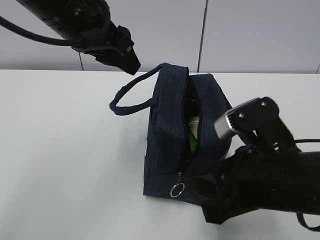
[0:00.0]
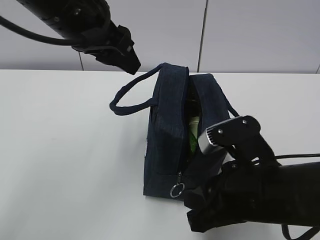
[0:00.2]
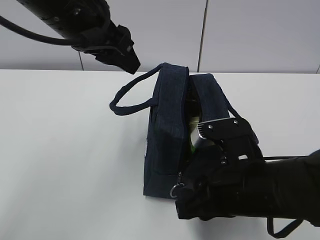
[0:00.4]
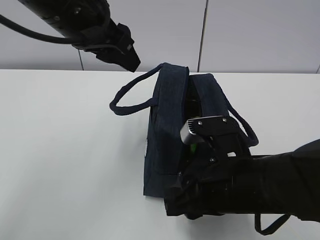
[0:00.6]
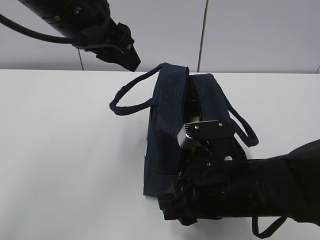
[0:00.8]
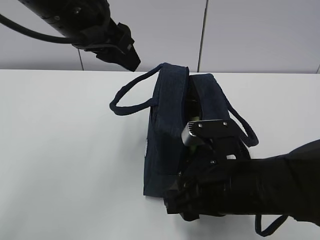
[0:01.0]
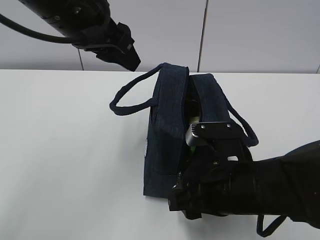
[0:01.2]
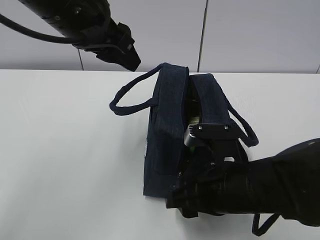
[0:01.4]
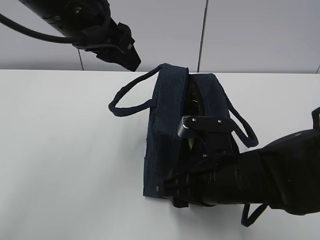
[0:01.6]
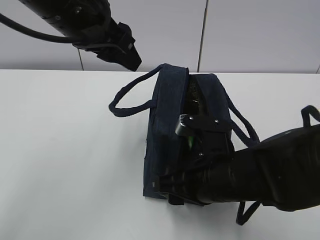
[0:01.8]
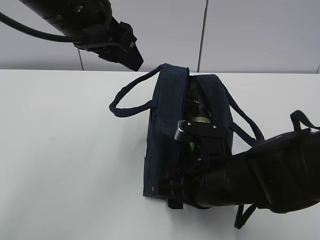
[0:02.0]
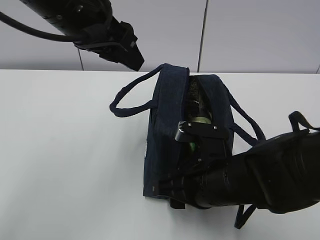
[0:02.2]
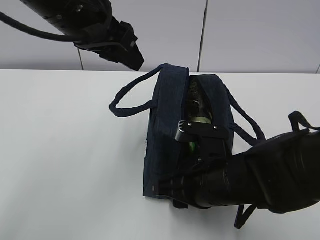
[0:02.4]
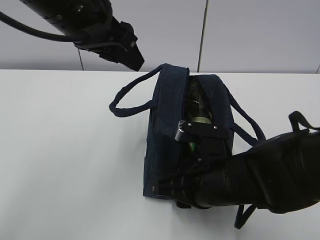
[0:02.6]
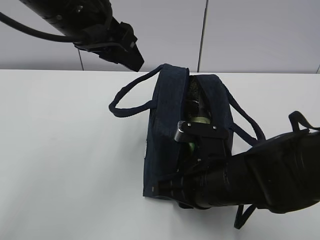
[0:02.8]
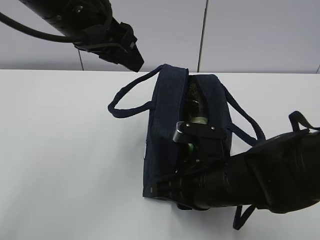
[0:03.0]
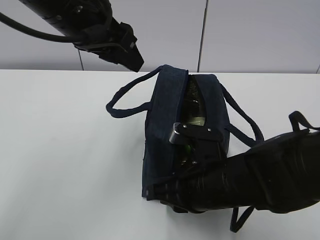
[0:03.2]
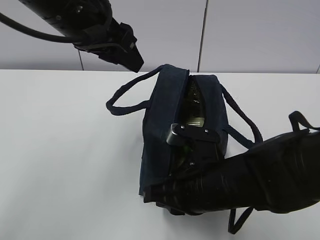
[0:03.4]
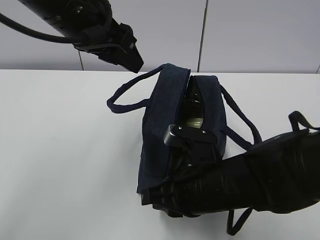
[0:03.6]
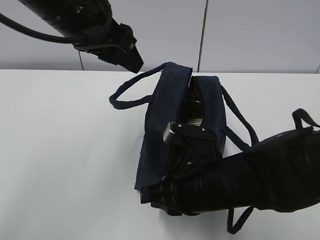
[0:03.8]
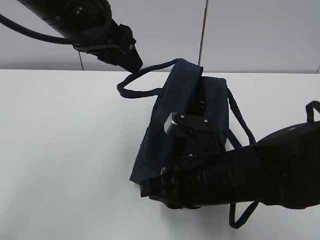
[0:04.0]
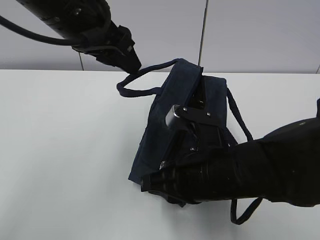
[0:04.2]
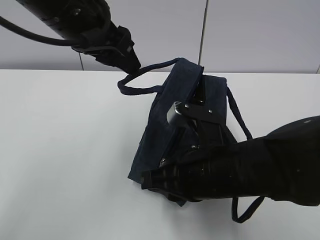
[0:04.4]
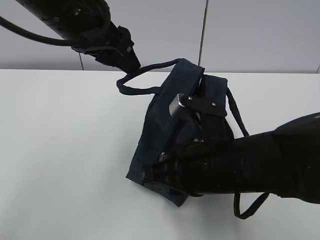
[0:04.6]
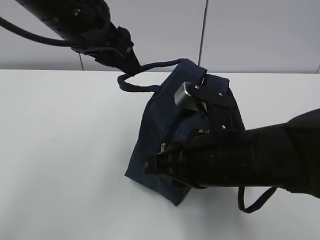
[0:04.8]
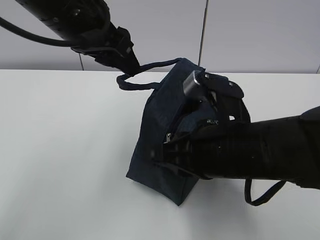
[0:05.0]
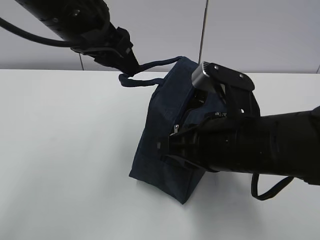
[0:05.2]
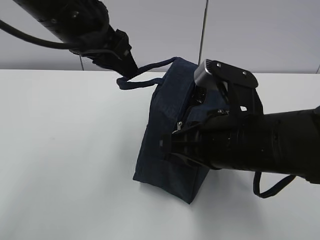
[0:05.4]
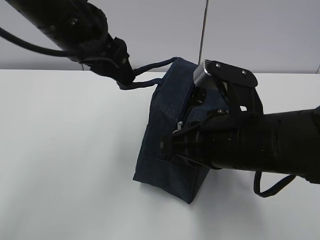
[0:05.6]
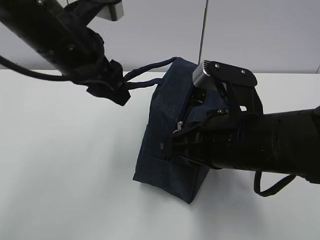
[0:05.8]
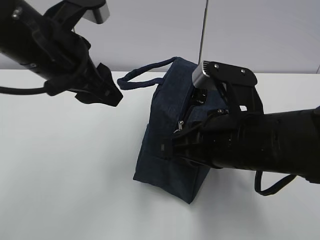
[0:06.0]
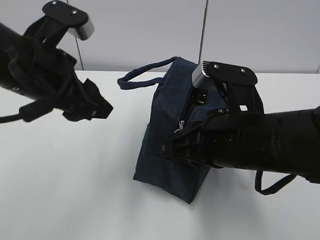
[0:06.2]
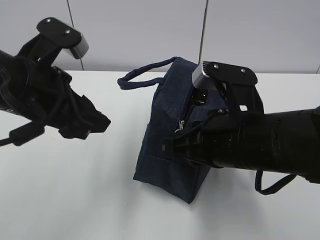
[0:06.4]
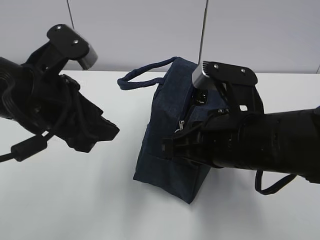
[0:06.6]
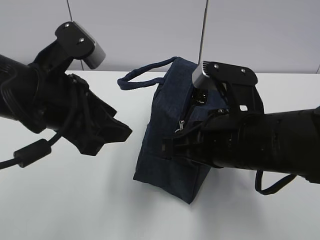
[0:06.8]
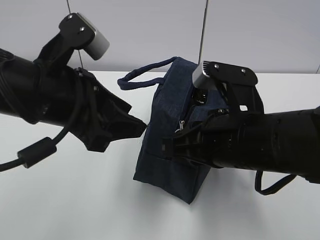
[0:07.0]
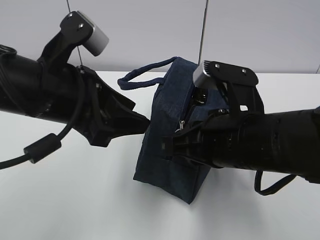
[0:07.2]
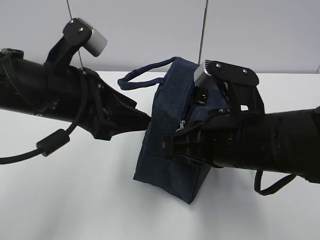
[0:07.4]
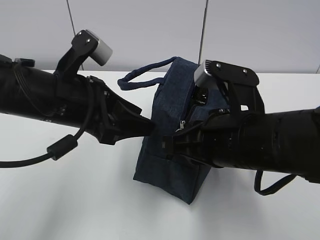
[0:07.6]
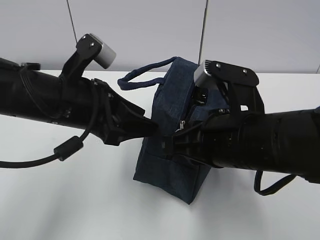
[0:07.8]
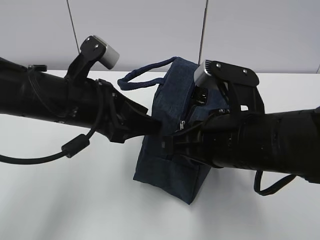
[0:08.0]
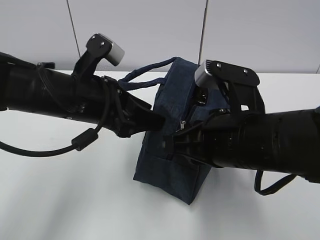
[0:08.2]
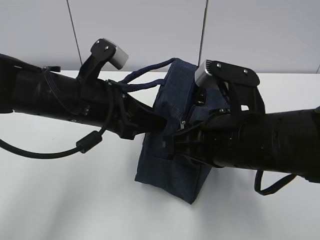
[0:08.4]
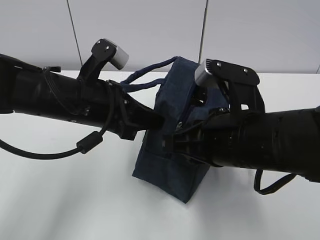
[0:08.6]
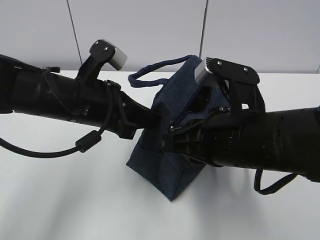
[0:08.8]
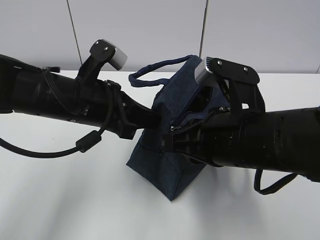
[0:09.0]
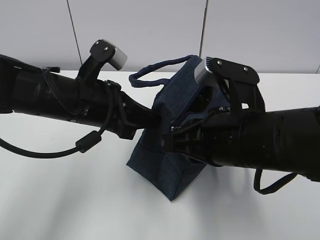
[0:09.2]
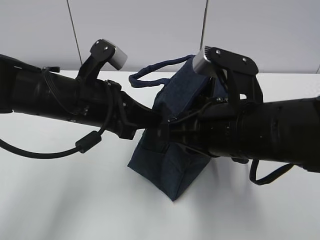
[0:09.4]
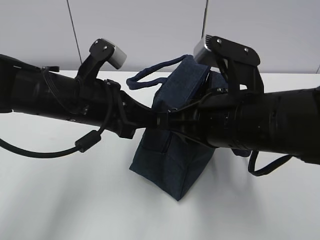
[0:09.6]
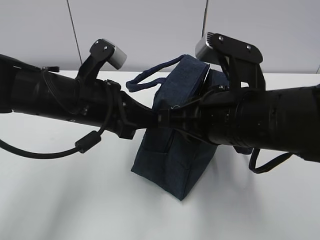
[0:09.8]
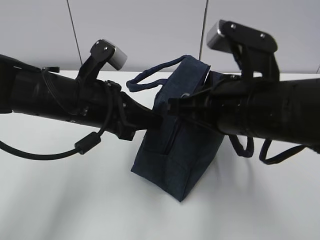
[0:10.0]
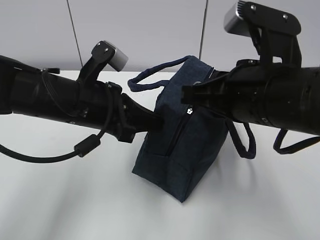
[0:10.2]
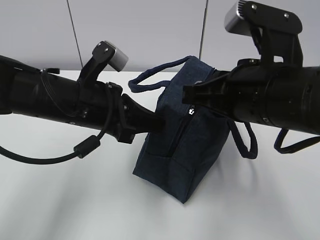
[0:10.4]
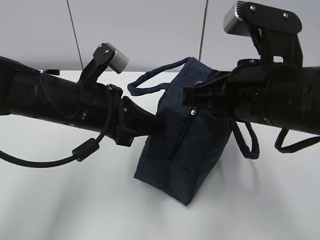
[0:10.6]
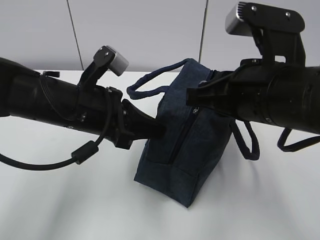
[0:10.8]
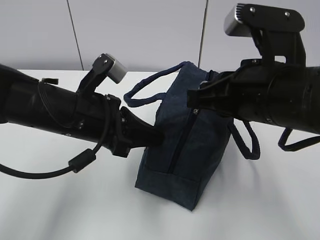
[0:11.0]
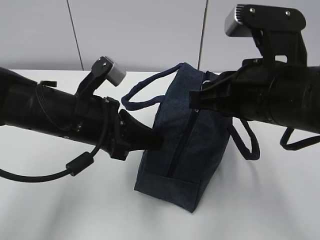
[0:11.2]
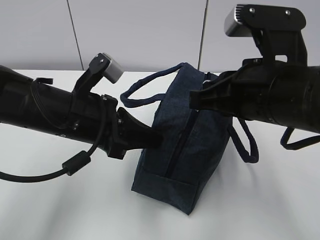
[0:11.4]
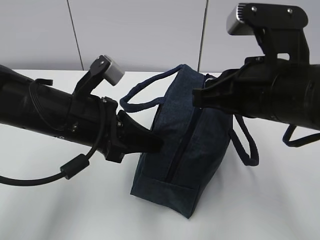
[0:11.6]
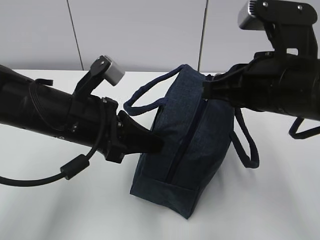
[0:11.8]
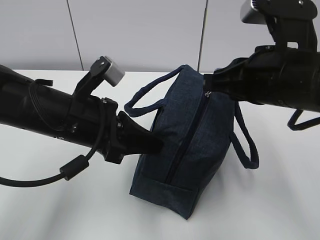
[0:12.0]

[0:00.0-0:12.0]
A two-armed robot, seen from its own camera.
Step, 0:04.0 to 0:09.8: Pull the zipper with your right hand.
Step, 0:10.0 to 0:11.6: Grab the lunch bag with your left hand.
0:00.0 to 0:01.6: The right gripper travels downward by about 5 cm.
0:01.6 to 0:03.0: The right gripper closes up.
0:03.0 to 0:04.4: There are only small adjustments of the grippers.
0:04.4 to 0:06.0: The right gripper shifts by some 5 cm, while the left gripper shifts by about 5 cm.
0:06.0 to 0:07.6: The left gripper heads downward, covering roughly 5 cm.
0:07.6 to 0:09.0: The left gripper closes.
0:09.0 to 0:10.4: The right gripper shifts by about 5 cm.

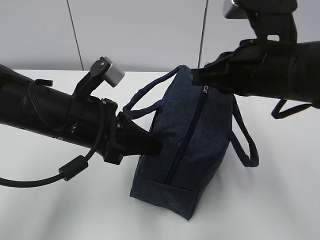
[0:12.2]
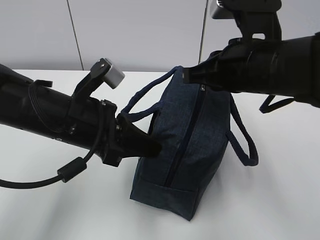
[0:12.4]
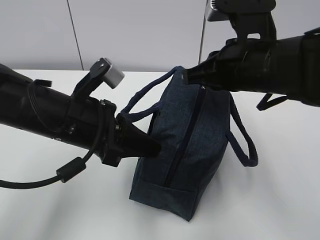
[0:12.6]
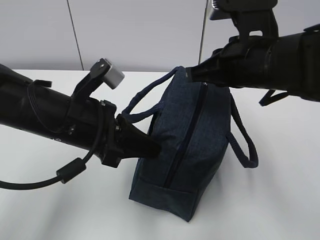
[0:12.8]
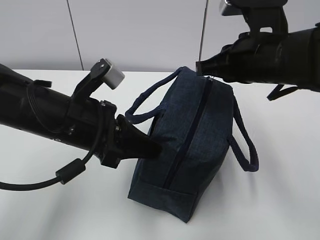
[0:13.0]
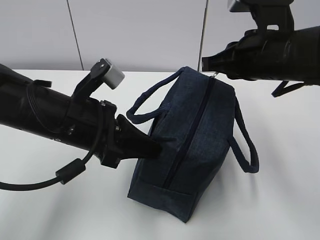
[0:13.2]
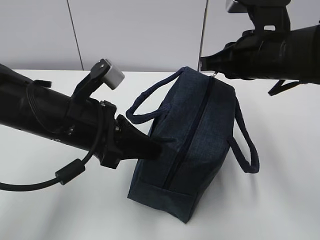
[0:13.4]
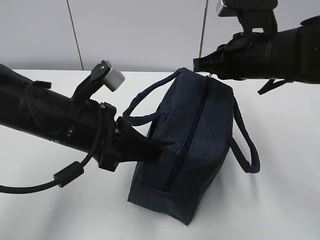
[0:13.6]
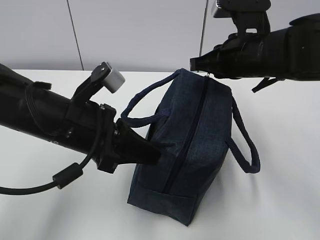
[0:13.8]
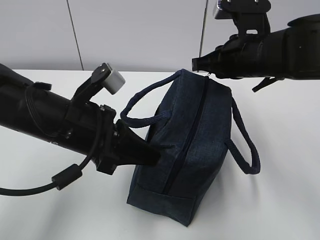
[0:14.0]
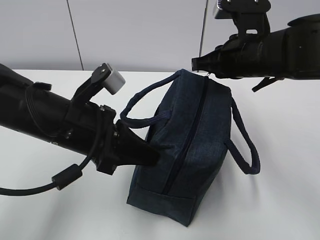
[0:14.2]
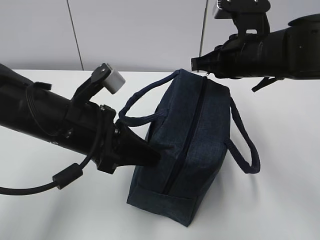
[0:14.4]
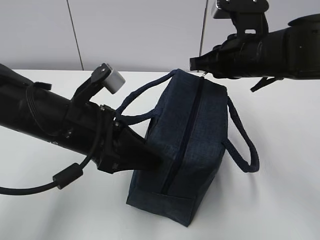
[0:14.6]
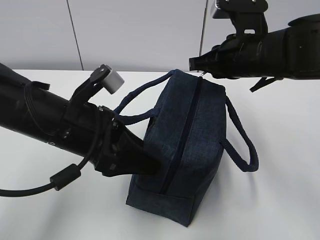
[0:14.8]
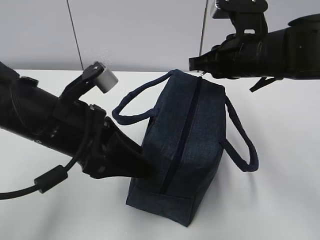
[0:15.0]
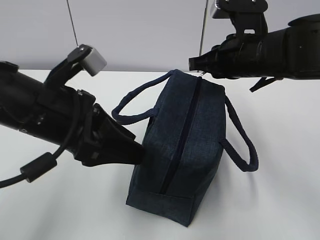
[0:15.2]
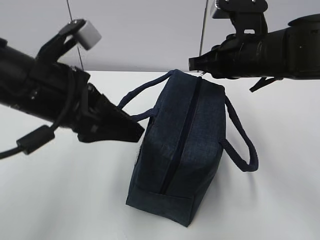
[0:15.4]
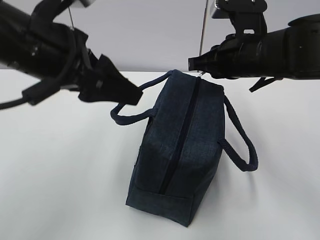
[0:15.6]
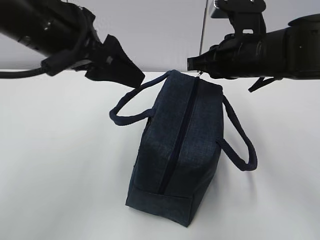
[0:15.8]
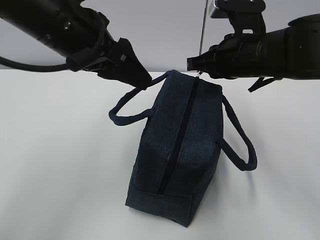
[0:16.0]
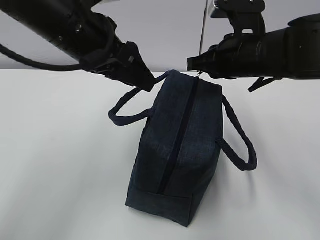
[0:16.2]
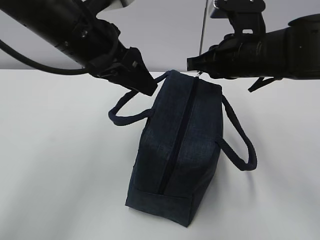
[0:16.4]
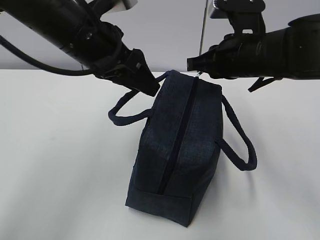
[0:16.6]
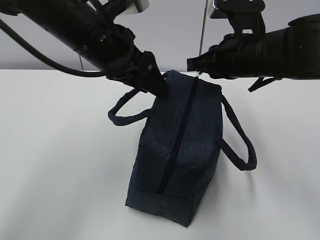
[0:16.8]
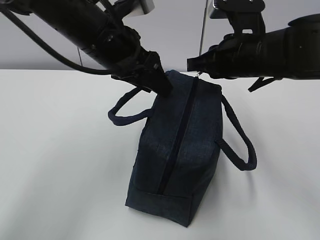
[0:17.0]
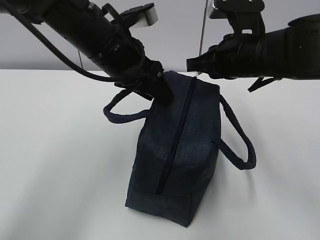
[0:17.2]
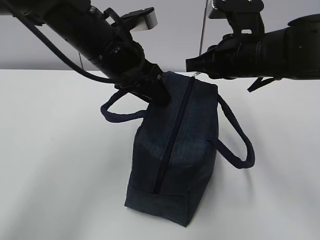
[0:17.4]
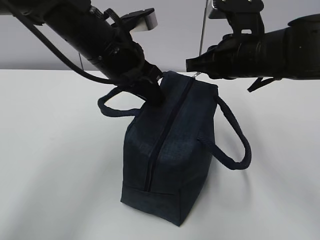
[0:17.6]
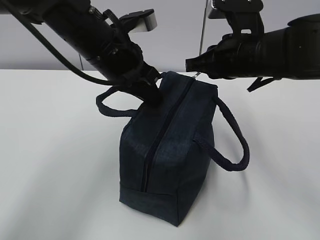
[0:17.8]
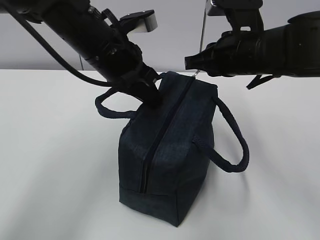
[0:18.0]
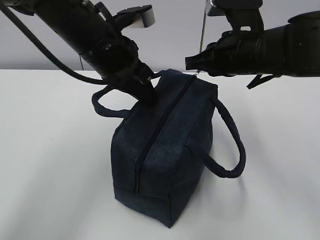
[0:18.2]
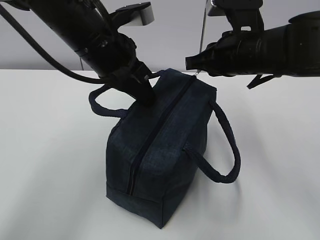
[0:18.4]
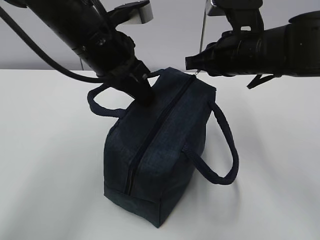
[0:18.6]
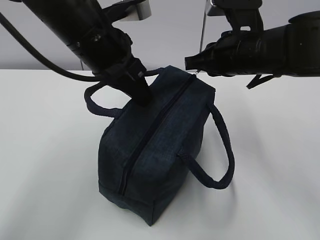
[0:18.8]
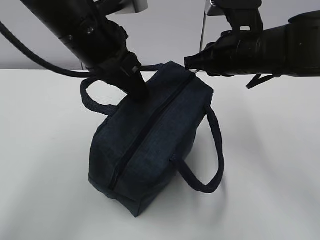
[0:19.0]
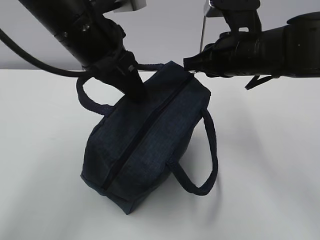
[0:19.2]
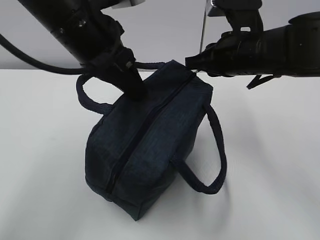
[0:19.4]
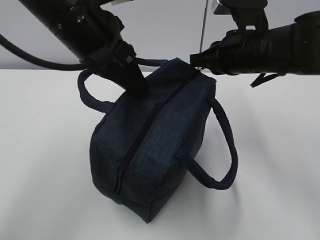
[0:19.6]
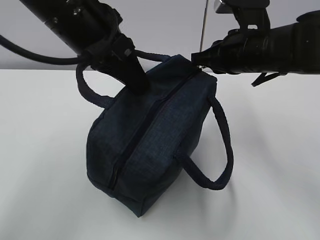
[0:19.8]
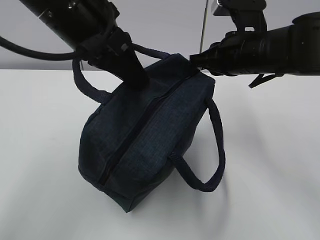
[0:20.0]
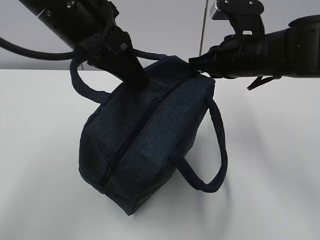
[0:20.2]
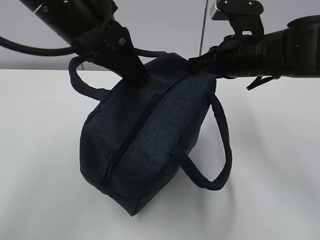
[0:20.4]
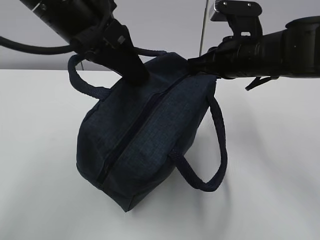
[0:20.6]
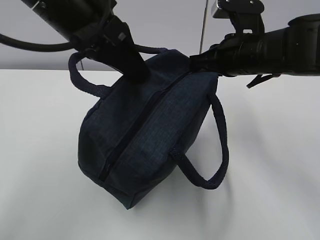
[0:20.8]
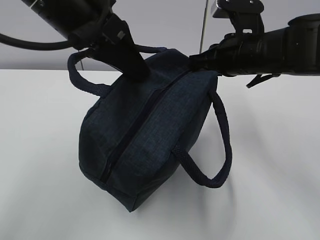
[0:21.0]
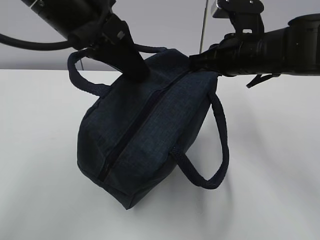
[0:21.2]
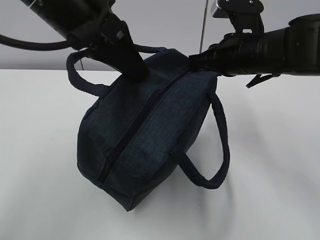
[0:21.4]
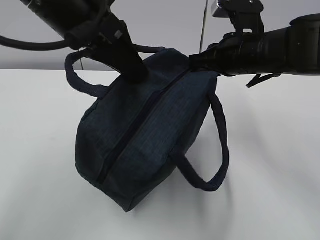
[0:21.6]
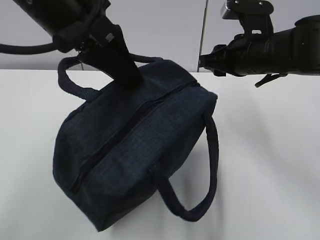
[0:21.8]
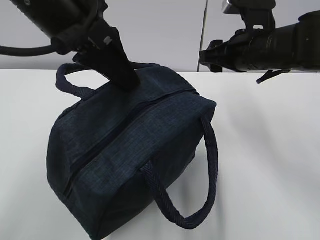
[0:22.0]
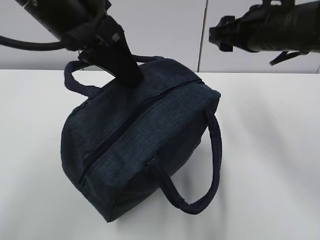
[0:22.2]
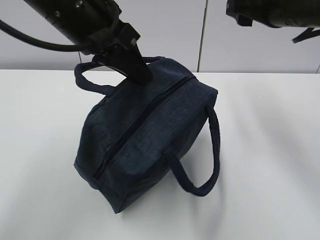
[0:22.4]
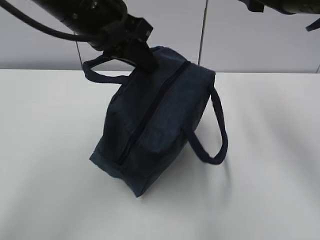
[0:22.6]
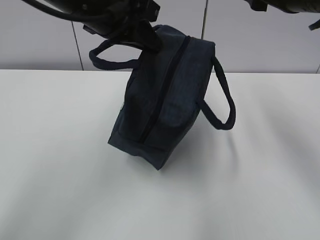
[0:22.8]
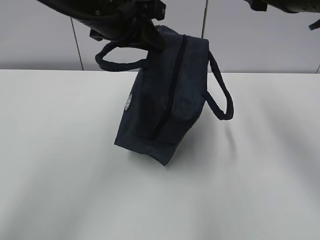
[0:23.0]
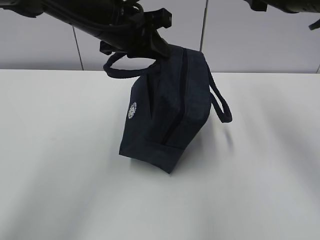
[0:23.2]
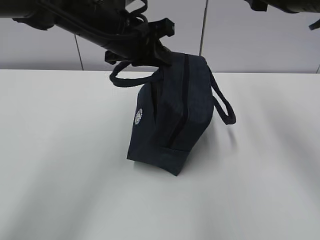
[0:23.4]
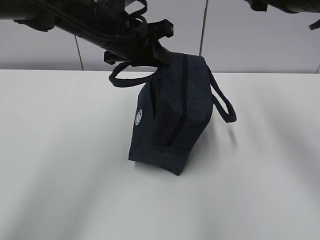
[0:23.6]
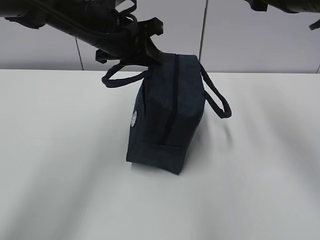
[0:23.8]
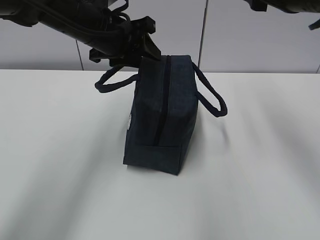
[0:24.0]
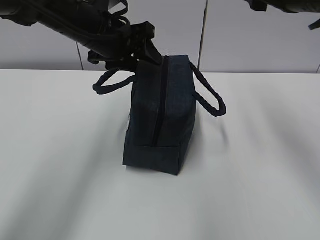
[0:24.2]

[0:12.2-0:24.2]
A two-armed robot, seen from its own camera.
0:12.2 to 0:13.8: The right gripper shifts about 10 cm forward.
0:13.8 to 0:15.2: The left gripper opens up.
0:15.2 to 0:16.6: The left gripper heads forward and upward, covering some 10 cm.
0:16.6 to 0:18.2: The left gripper closes.
0:18.2 to 0:19.8: The left gripper shifts approximately 5 cm upward.
0:19.8 to 0:21.2: The grippers make only small movements.
0:21.2 to 0:22.6: The right gripper travels upward by about 10 cm, and opens up.
0:22.6 to 0:24.2: The left gripper shifts roughly 10 cm forward and downward, and opens its fingers.
